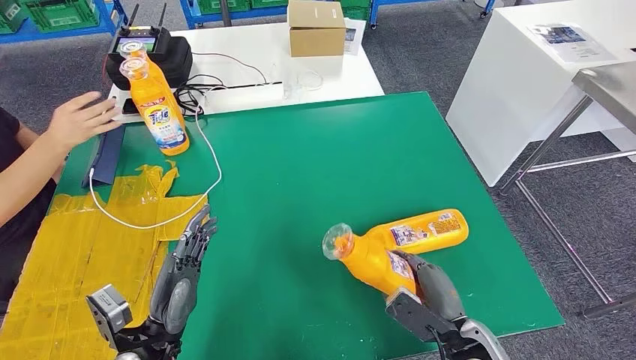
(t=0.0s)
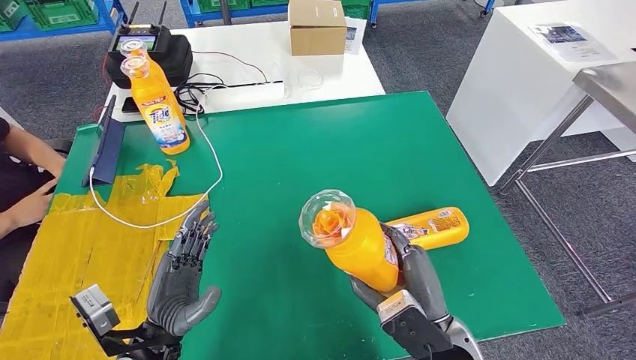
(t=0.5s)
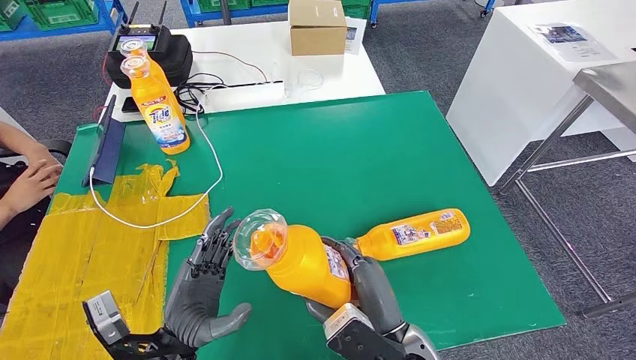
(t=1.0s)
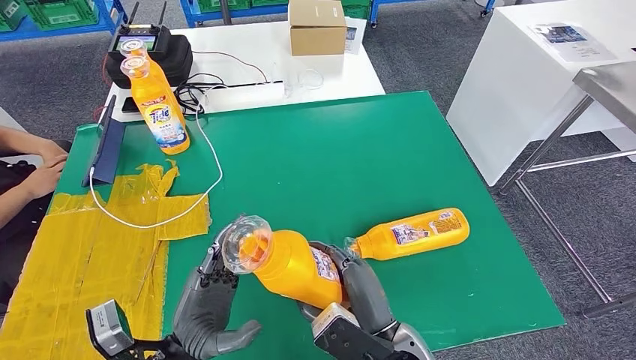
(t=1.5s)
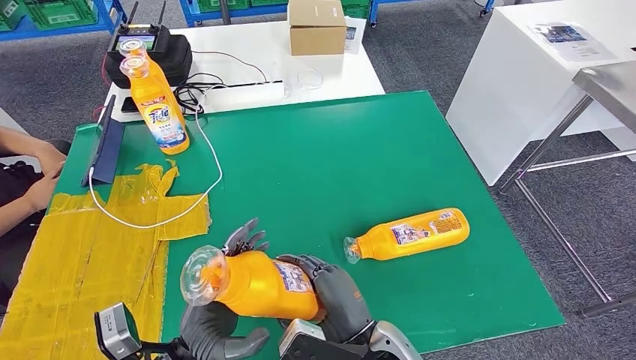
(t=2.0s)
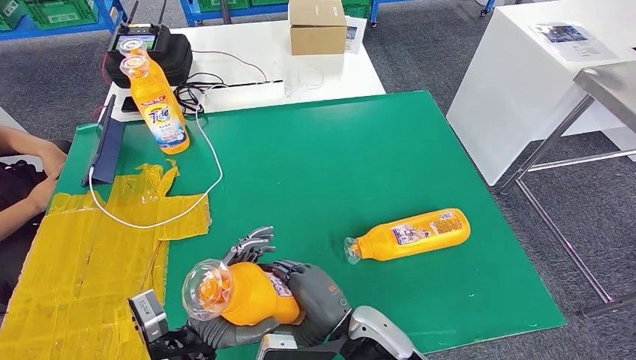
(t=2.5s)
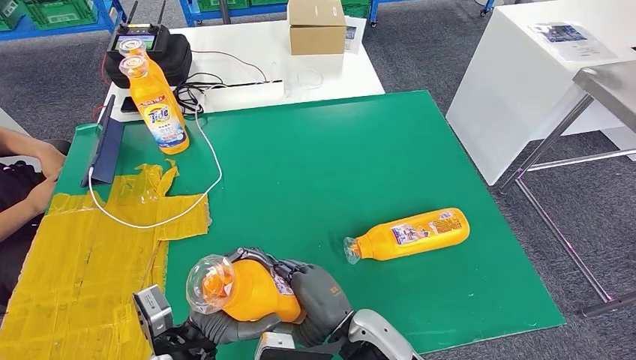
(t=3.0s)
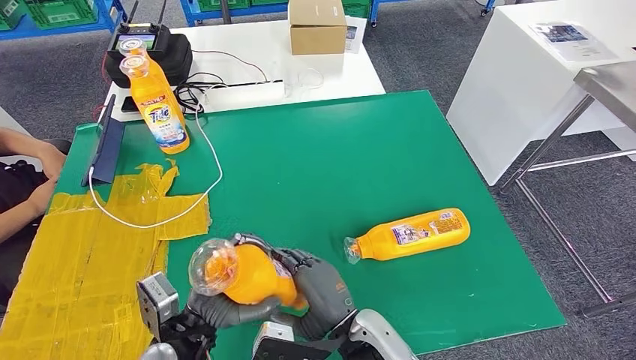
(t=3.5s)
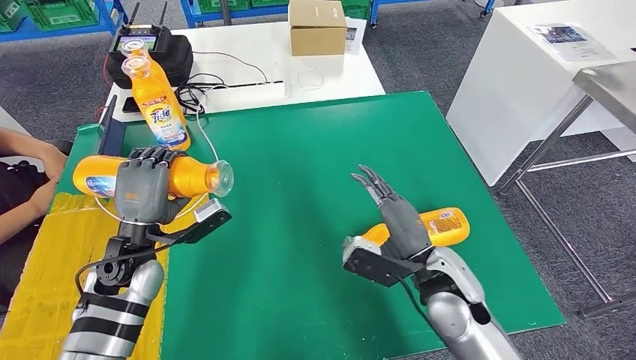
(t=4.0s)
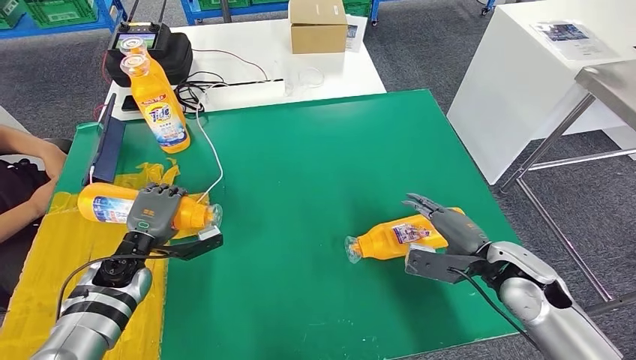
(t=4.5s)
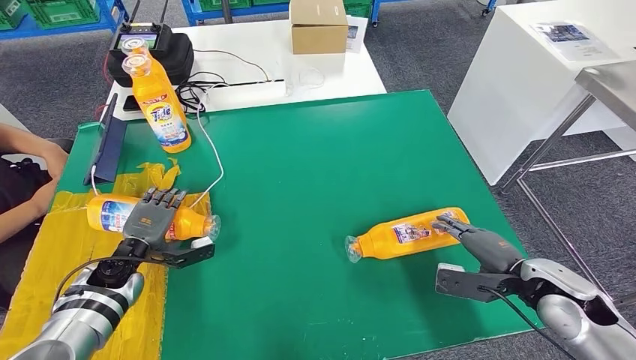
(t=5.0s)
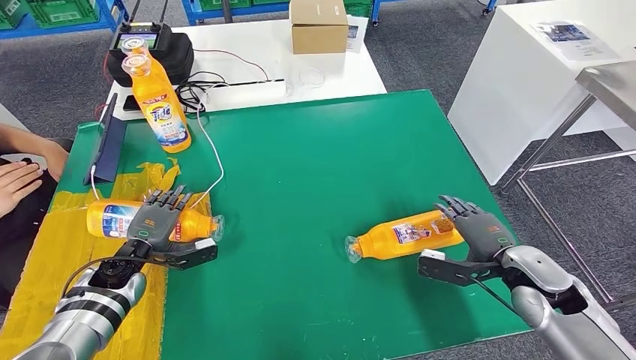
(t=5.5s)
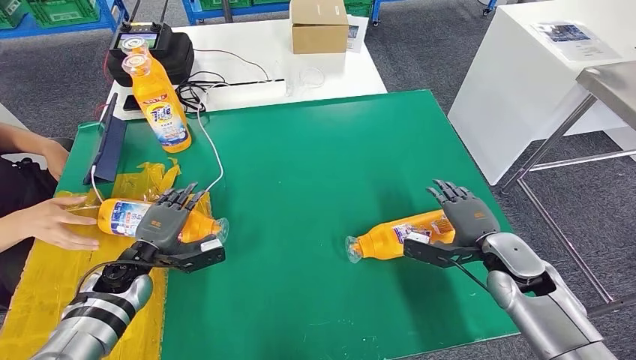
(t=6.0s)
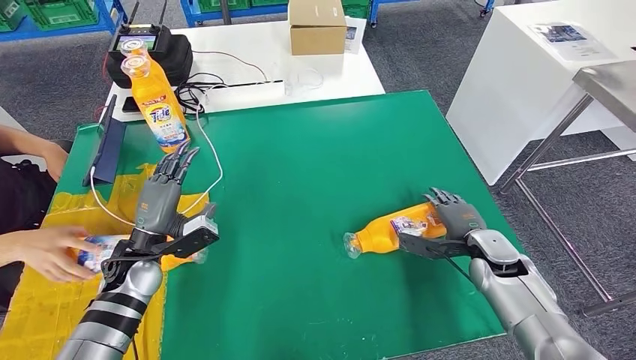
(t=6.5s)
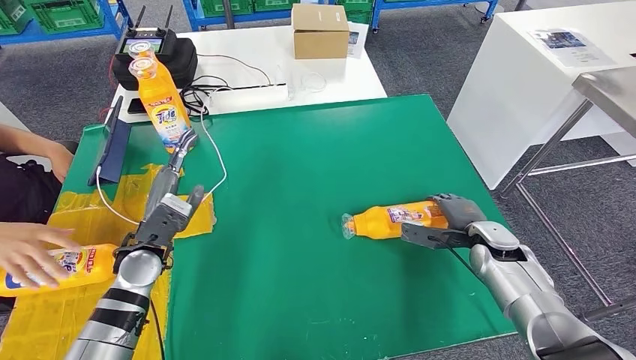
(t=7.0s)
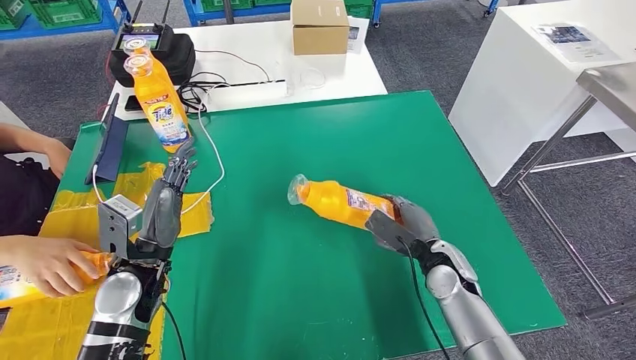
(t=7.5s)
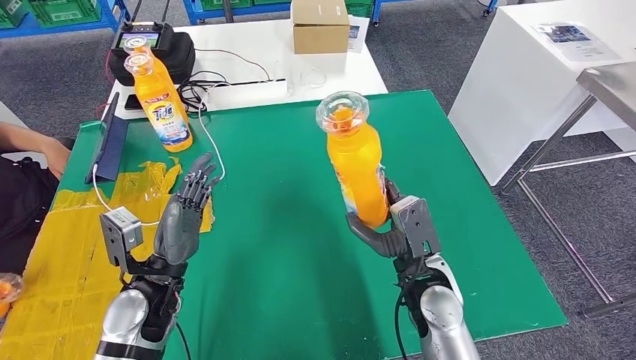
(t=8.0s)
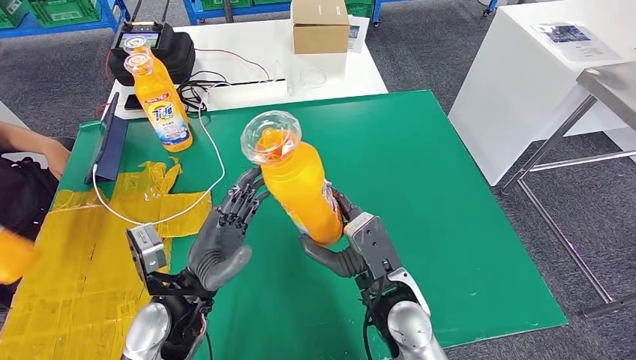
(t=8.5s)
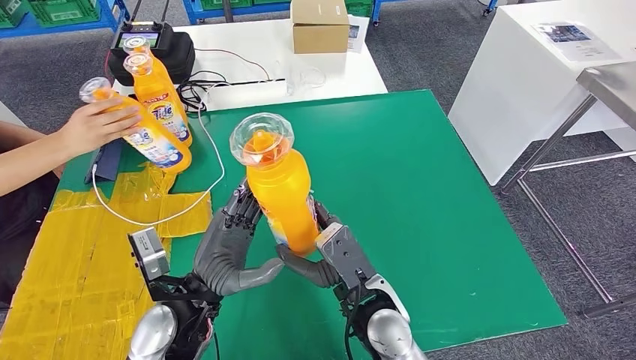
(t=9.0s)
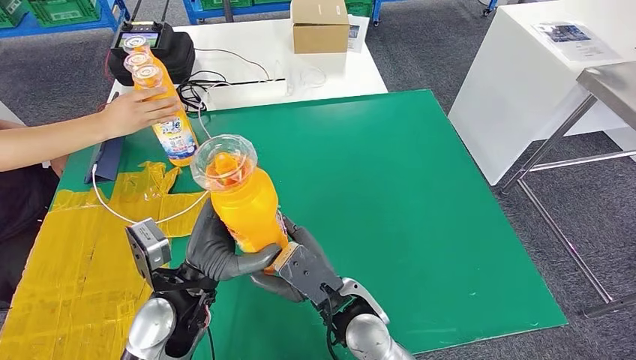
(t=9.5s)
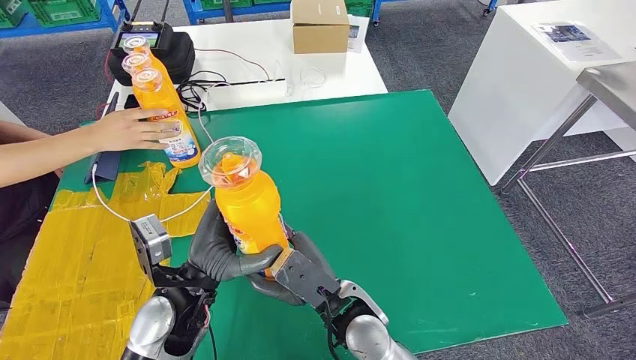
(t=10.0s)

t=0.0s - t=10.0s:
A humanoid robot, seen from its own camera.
Step, t=1.5s - t=6.0s: Flip the fast-moving consumer goods bottle to the front side.
Step, t=6.5s - t=8.5s: Pick up the fast-moving consumer goods bottle from the table.
t=0.0s - t=2.0s: The right hand travels to the left by roughly 20 cm; the left hand moves to the right, approximately 5 cm.

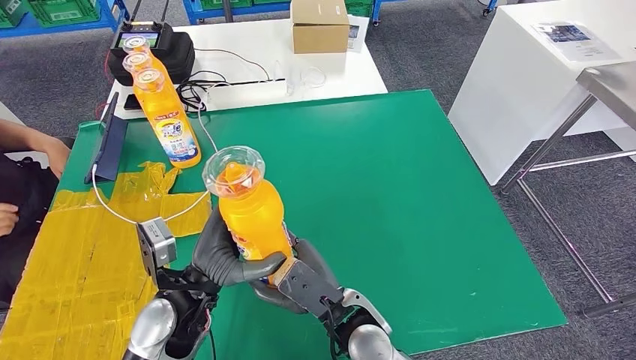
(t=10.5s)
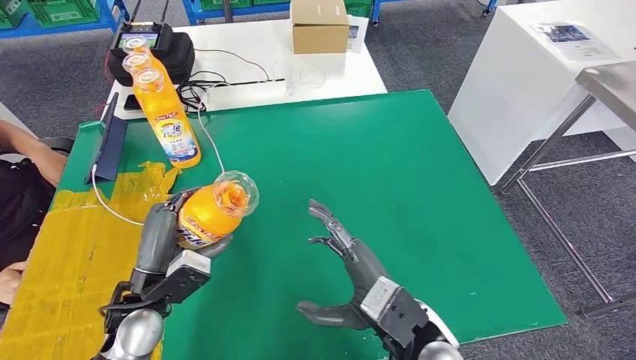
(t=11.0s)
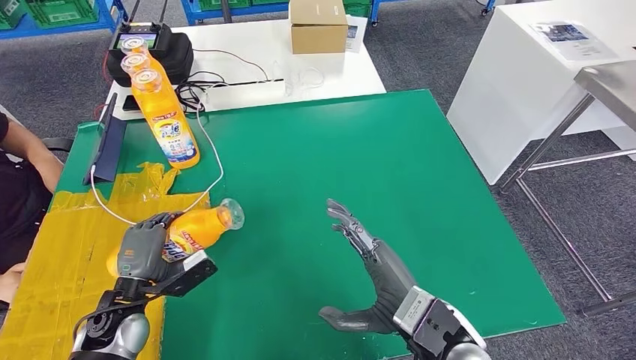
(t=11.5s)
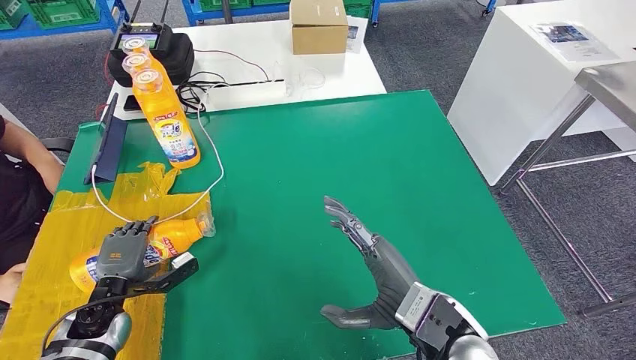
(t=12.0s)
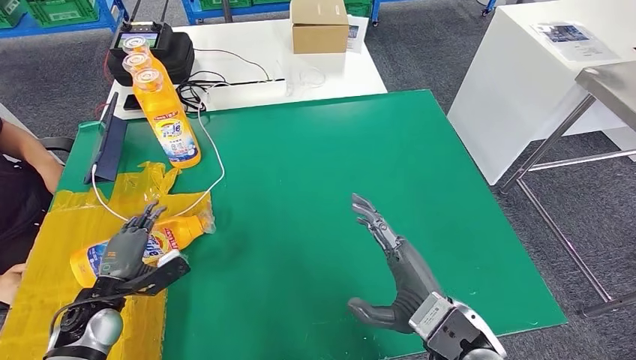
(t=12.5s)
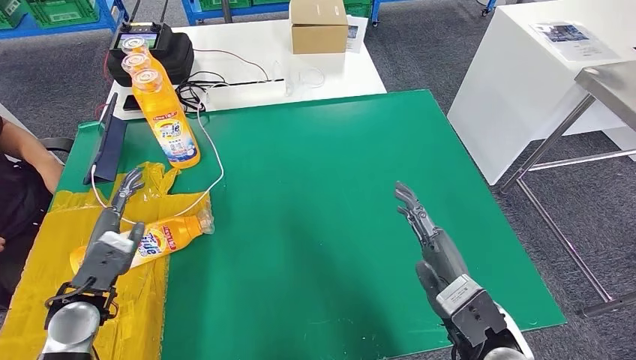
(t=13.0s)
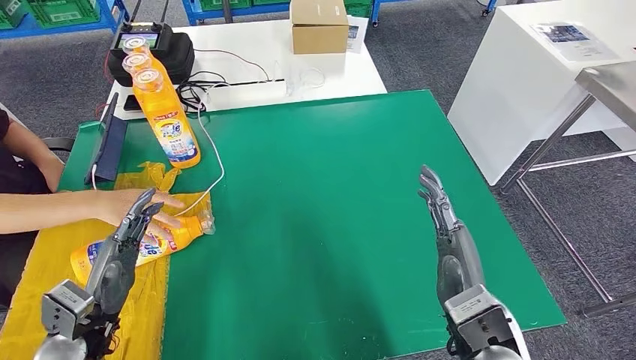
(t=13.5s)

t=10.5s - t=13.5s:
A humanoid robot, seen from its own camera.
Step, t=10.5s - t=13.0s: Flip the fast-moving consumer goods bottle to the front side.
t=10.5s - t=12.0s: The right hand heads to the right and upward, covering about 15 cm, while the left hand is displaced to the left and downward by about 25 cm.
t=12.0s - t=13.5s: The right hand shifts by roughly 5 cm; the left hand heads upward and backward, covering roughly 10 cm.
